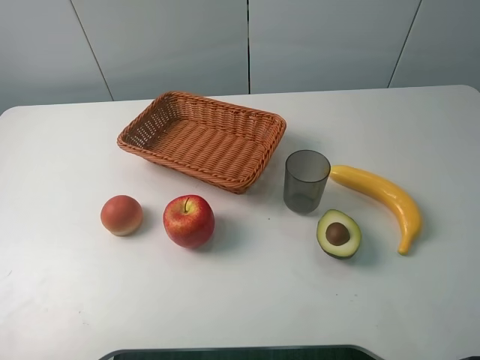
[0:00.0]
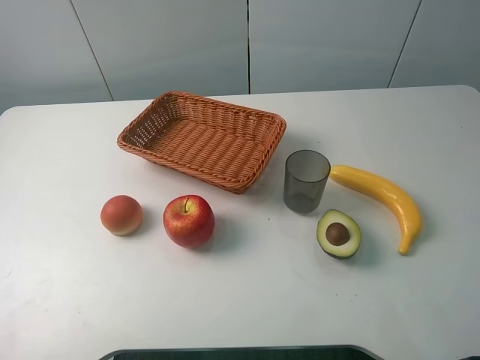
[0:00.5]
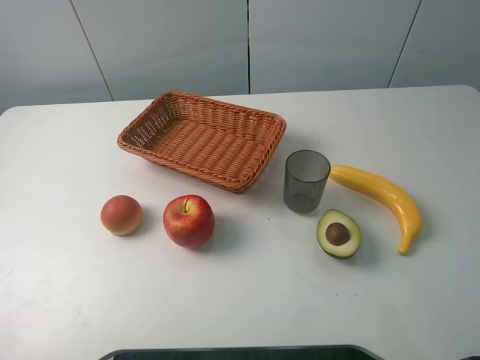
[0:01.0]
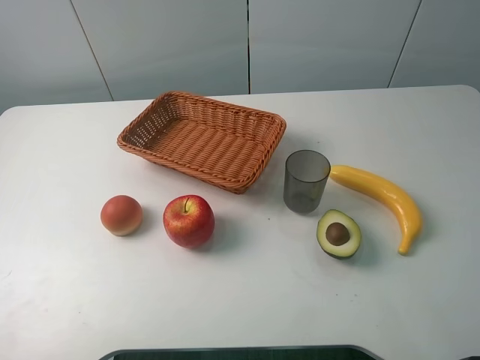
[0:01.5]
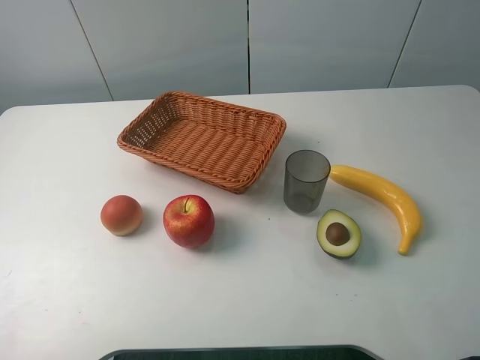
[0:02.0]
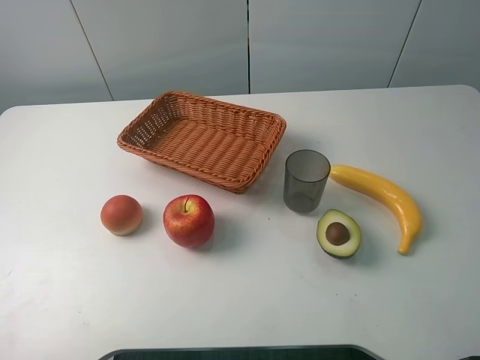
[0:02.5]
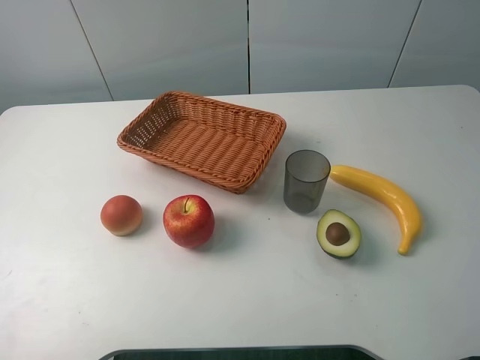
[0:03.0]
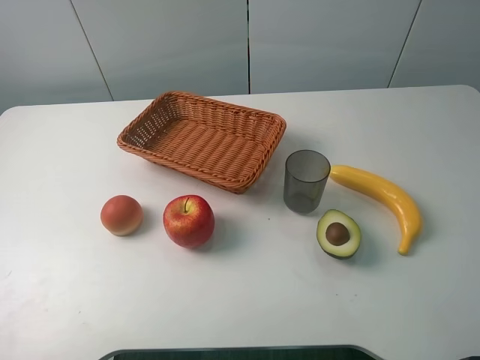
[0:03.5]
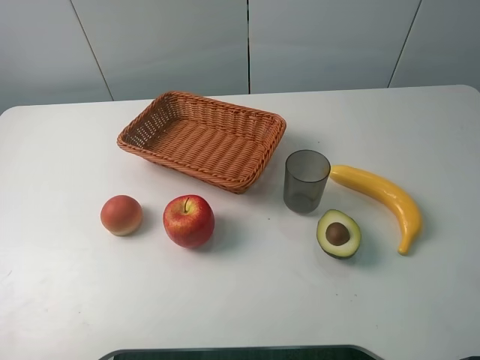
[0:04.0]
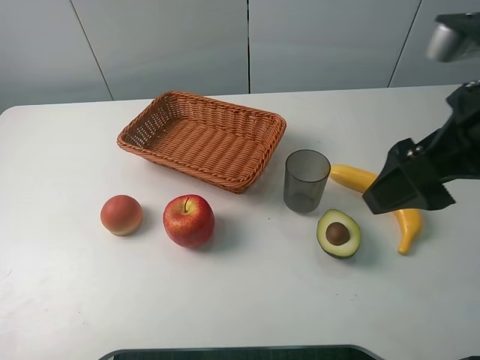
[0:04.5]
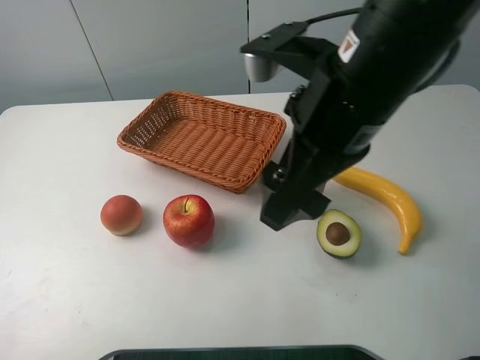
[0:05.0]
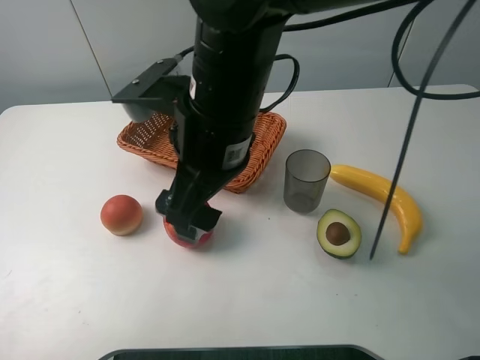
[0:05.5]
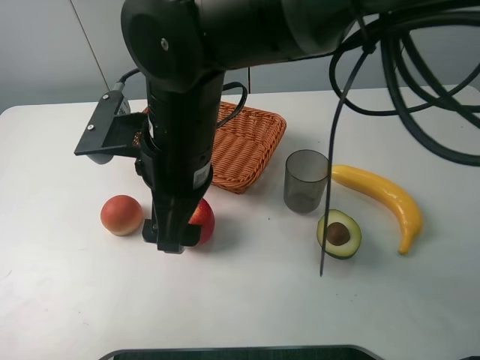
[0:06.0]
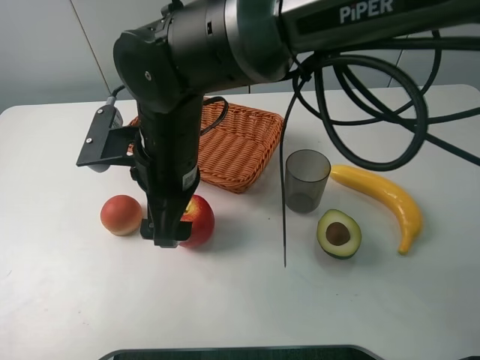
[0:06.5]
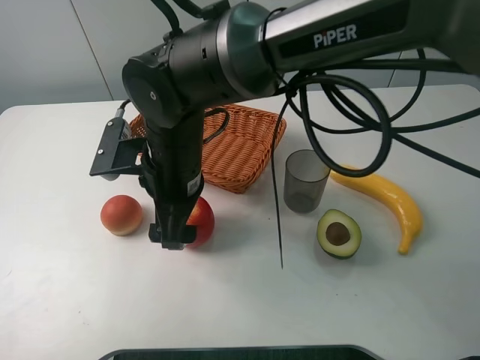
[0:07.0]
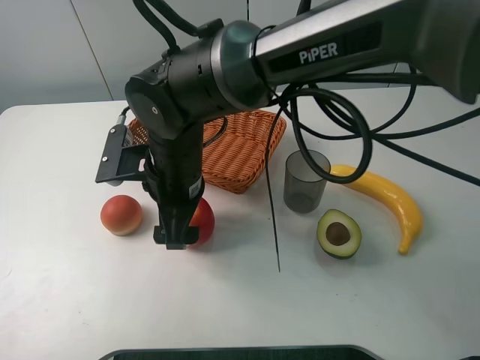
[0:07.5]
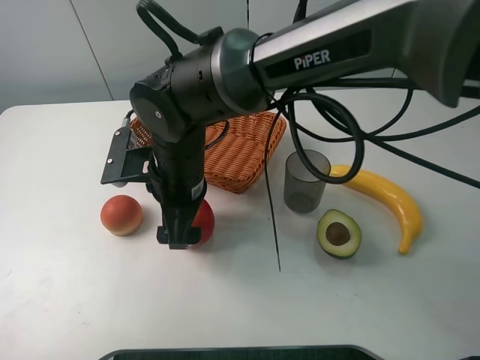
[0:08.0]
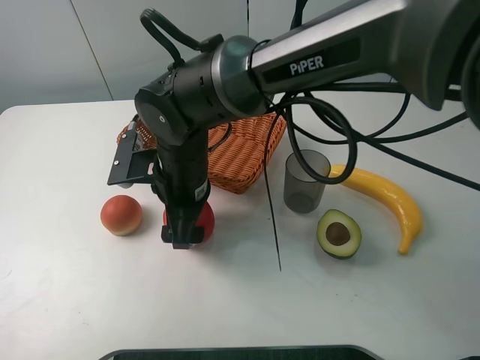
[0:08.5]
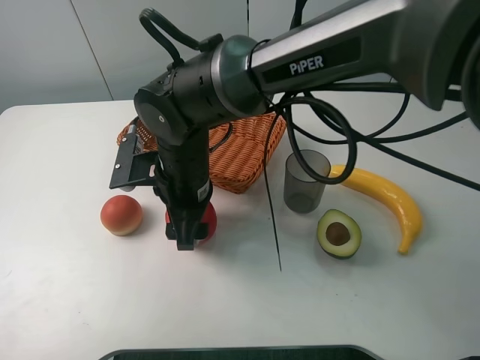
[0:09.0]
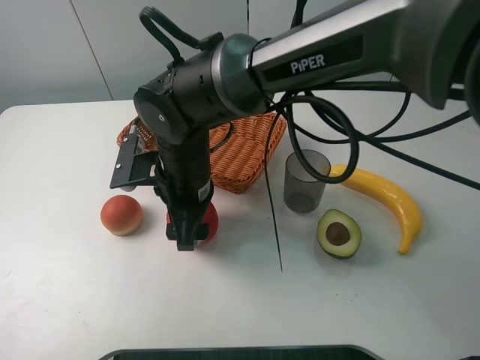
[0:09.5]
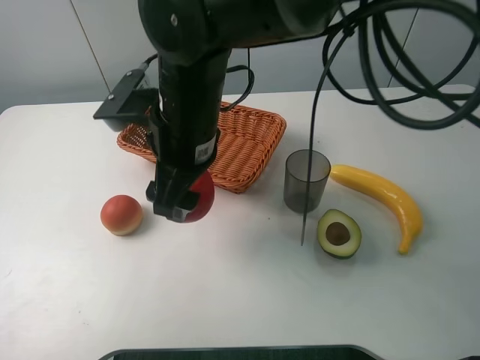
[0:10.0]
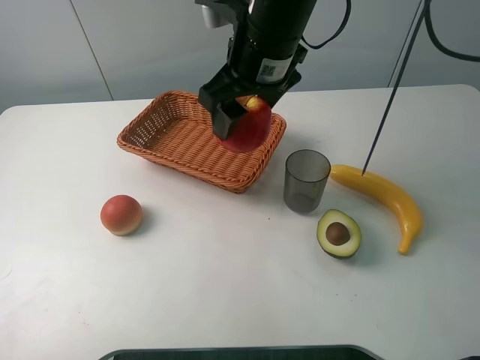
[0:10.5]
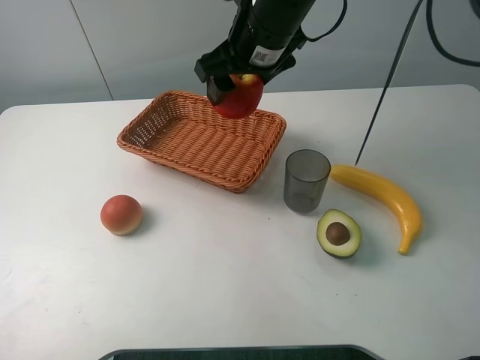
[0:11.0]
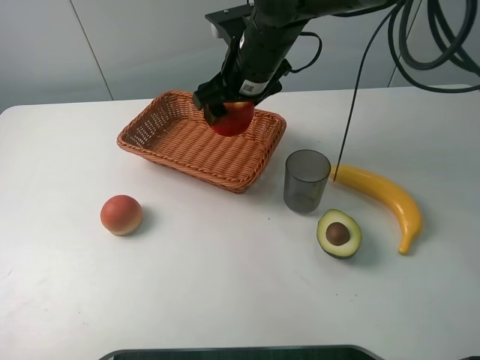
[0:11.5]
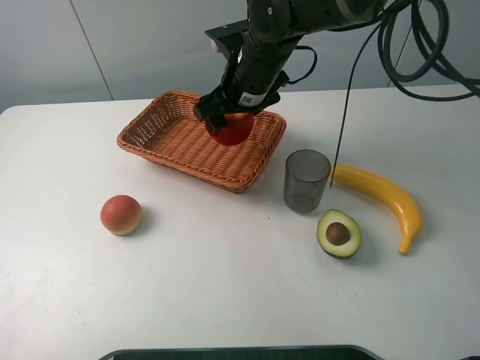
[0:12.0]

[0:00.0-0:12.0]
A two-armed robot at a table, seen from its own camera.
Task of the whole recording: randomly pick up an item from the table and put it in the basket.
Step, 0:00.0 to 0:08.5: Grasp the apple with the right gripper.
0:00.0 to 0:02.0: Both grippers stay about where they are.
0:04.0 to 0:06.0: The right gripper is displaced to the left by about 30 cm.
0:06.0 to 0:08.0: The right gripper travels downward by some 5 cm.
0:08.0 to 0:10.0: The right gripper heads upward, covering about 10 cm, and closes its fingers.
0:10.0 to 0:12.0: The right gripper travels forward and to the right by roughly 15 cm.

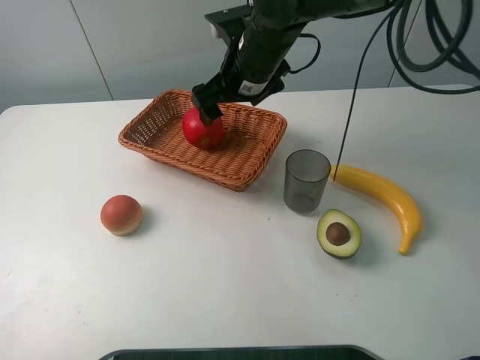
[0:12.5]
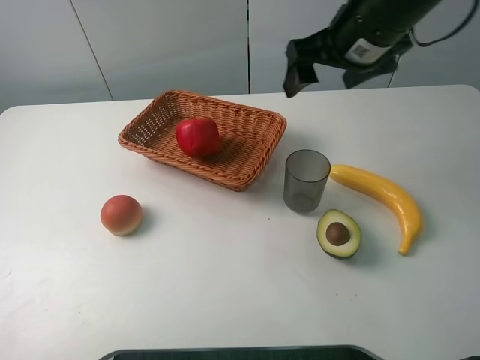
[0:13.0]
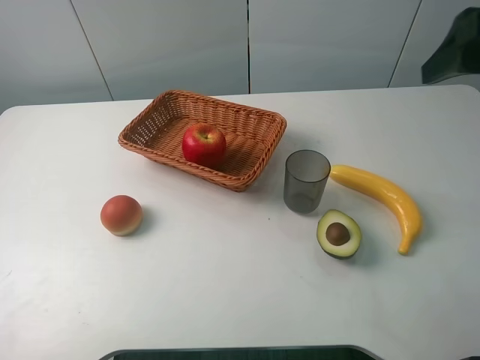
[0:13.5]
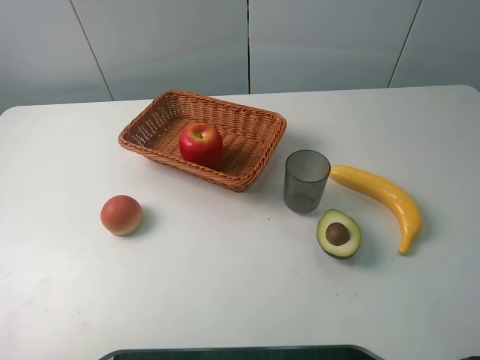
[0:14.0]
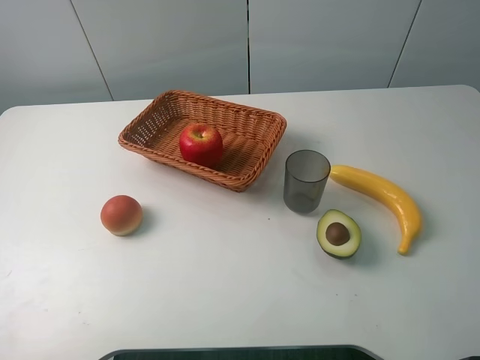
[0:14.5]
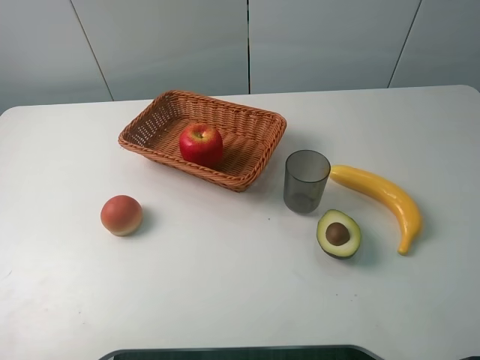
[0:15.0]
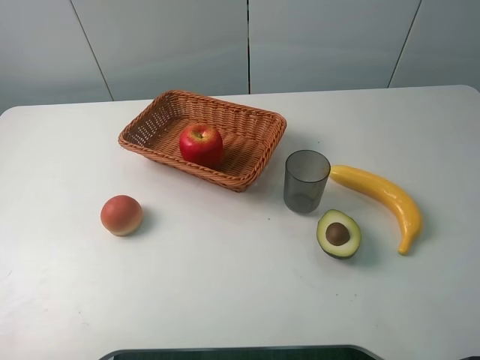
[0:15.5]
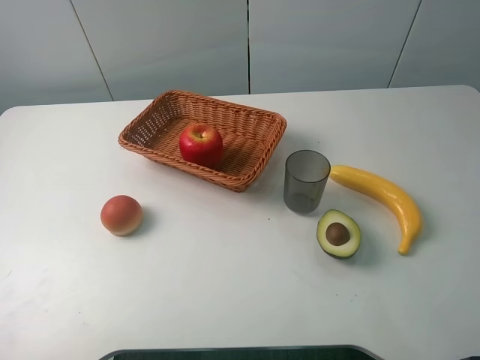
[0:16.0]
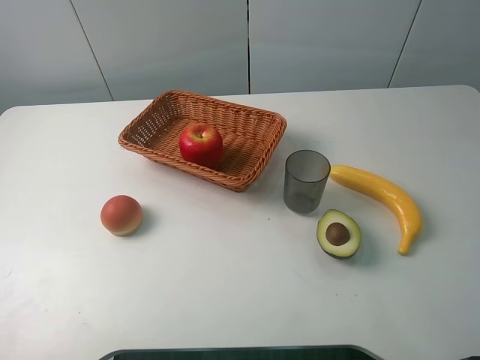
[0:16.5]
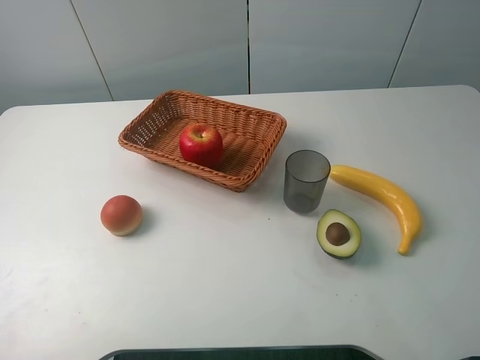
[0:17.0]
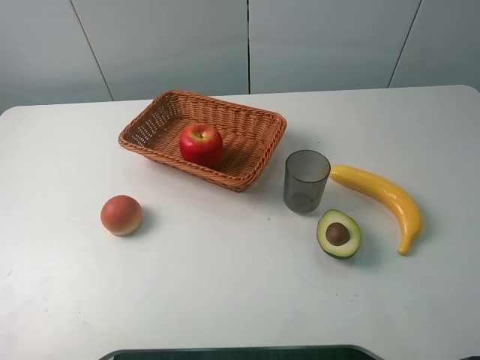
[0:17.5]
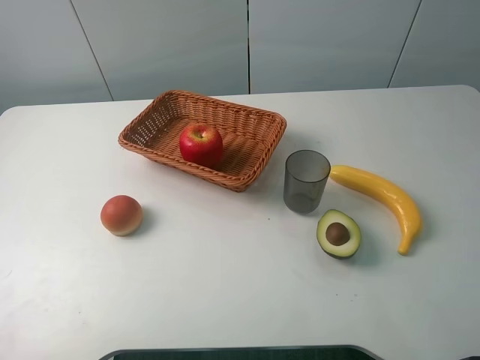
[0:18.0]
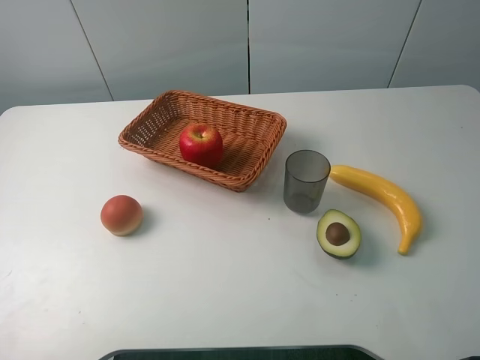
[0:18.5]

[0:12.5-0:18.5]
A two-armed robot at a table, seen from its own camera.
Task of the whole recording: randomly pick up an item from the table and put it in the basket.
0:12.5 to 0:14.5: The right gripper shifts about 40 cm backward and to the right.
